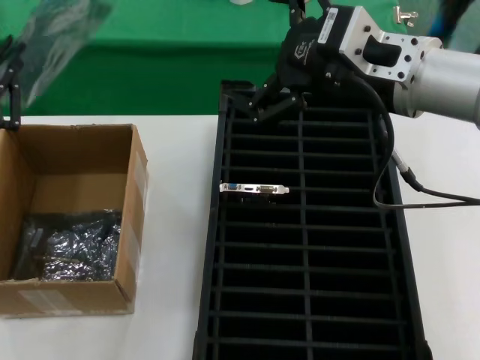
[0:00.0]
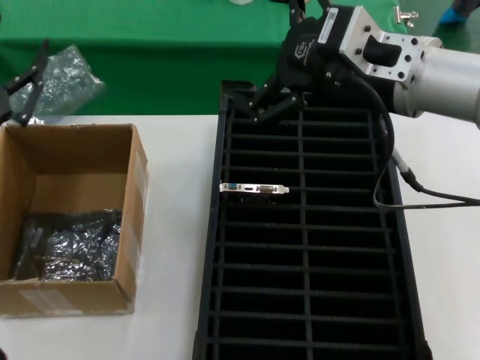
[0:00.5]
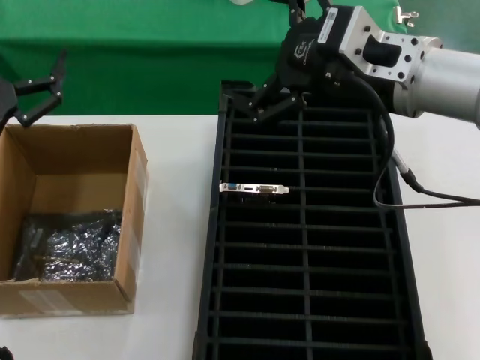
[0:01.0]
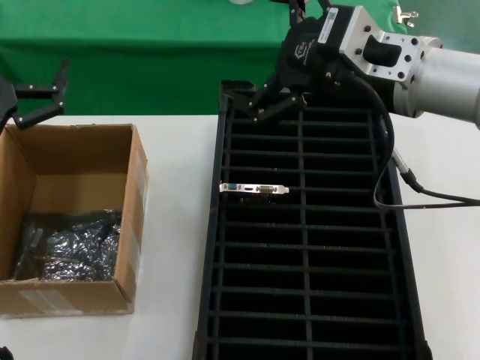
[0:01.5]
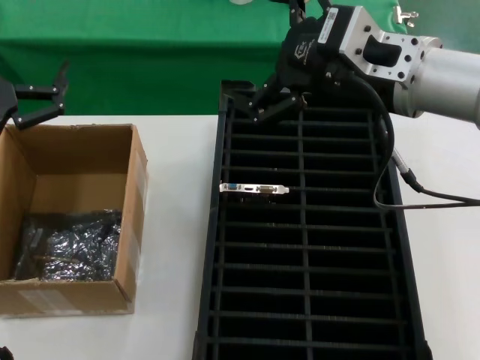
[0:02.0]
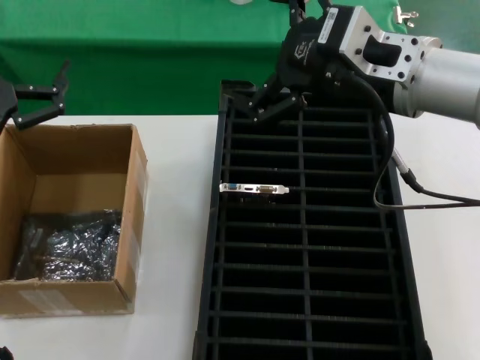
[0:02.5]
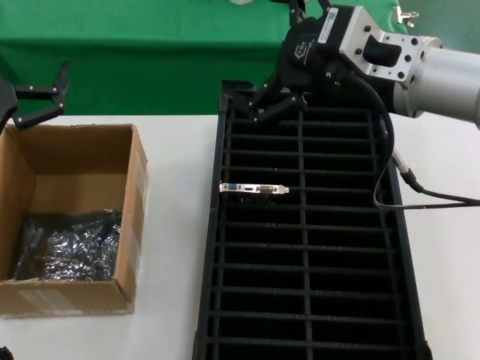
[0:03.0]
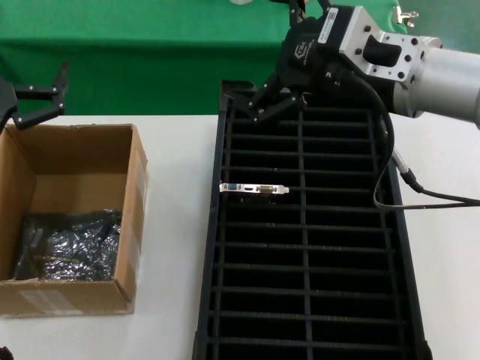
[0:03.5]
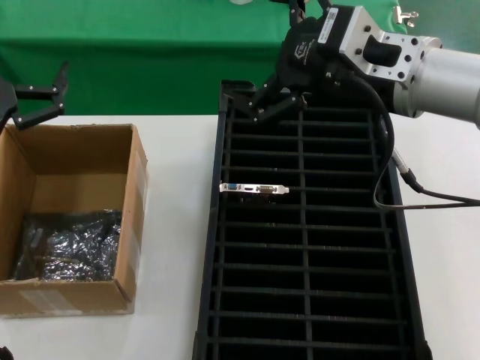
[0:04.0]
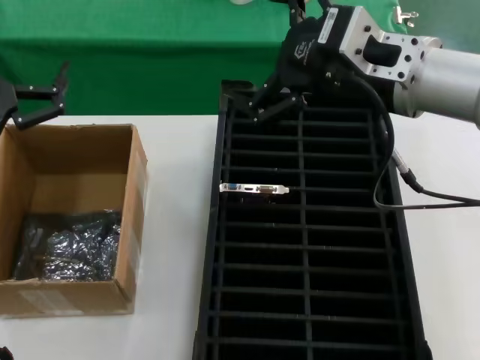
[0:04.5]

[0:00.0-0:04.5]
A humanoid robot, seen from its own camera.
Task of the whole recording: take out graphics card from box remove packaging put into black container.
0:00.0 to 0:02.0: The hands make only small movements.
0:02.0 to 0:04.5: Both hands stay about where they are.
